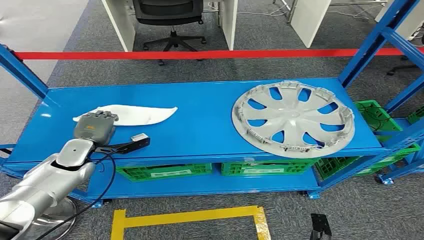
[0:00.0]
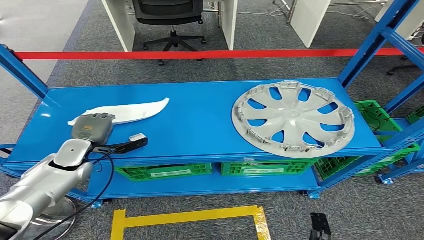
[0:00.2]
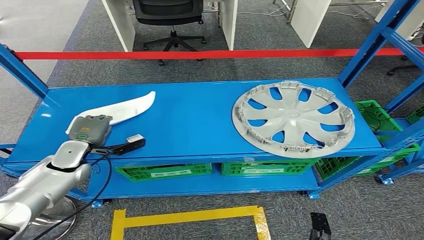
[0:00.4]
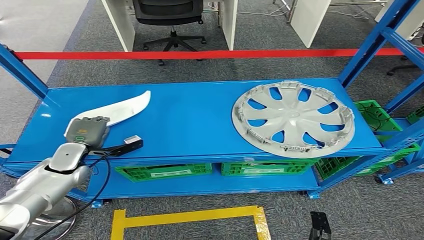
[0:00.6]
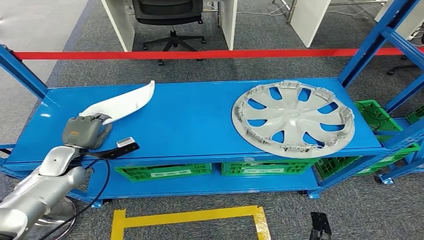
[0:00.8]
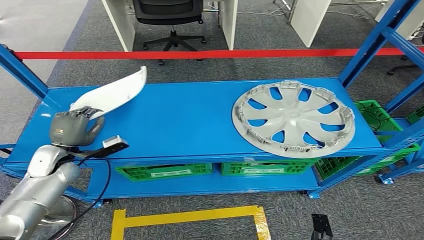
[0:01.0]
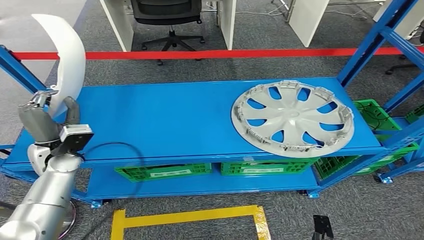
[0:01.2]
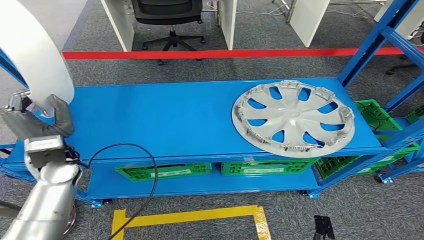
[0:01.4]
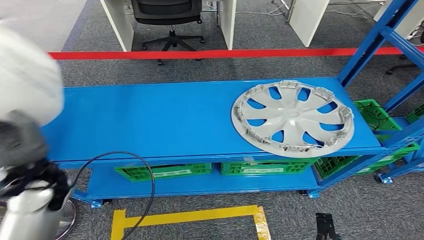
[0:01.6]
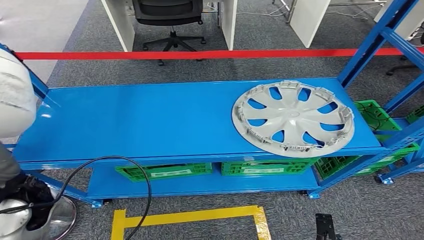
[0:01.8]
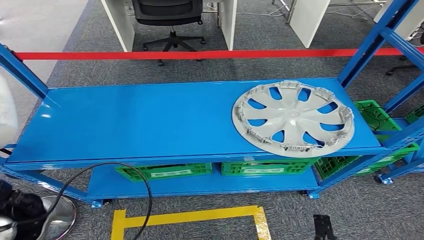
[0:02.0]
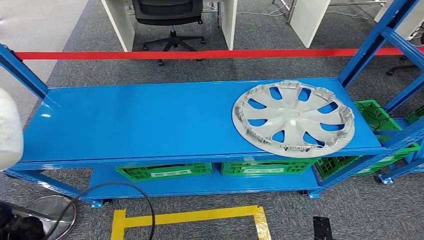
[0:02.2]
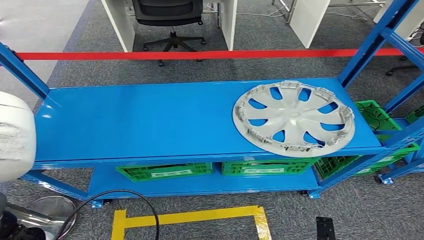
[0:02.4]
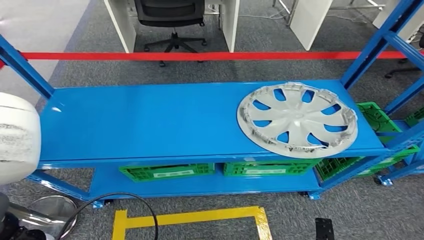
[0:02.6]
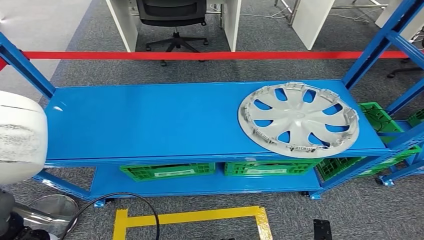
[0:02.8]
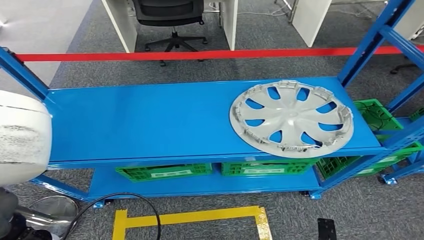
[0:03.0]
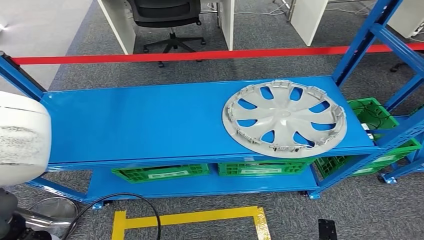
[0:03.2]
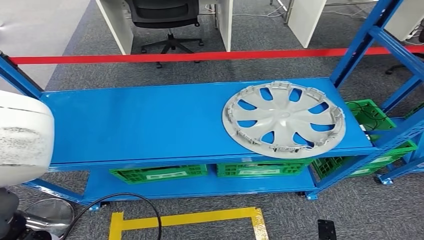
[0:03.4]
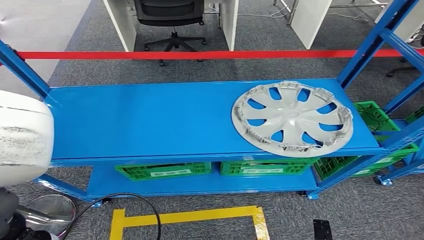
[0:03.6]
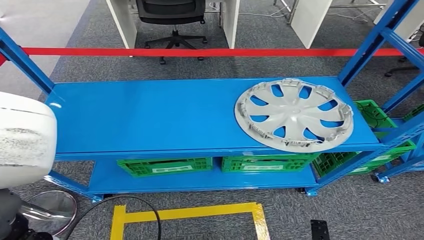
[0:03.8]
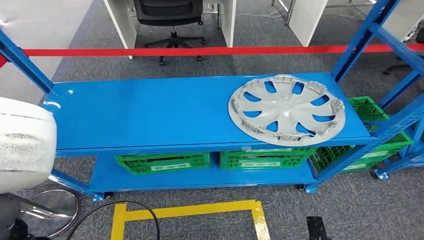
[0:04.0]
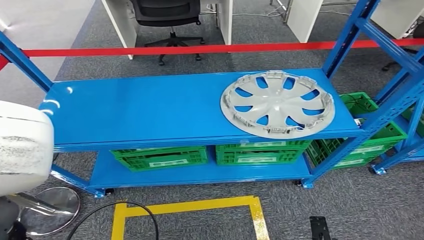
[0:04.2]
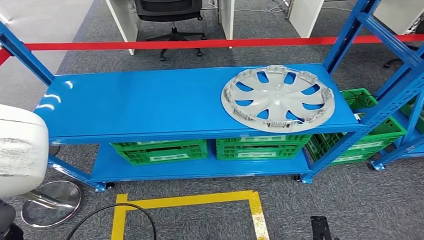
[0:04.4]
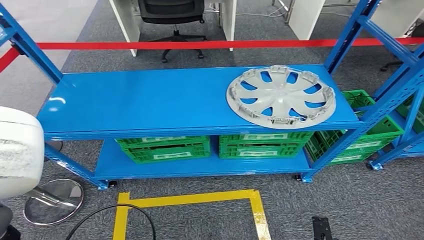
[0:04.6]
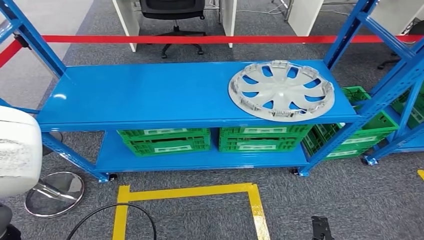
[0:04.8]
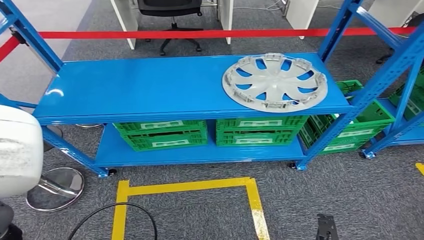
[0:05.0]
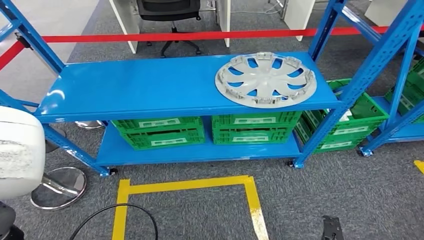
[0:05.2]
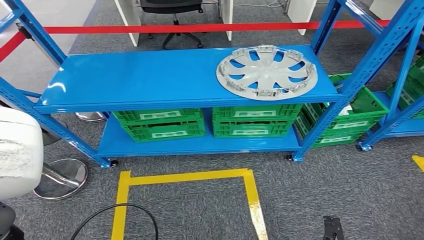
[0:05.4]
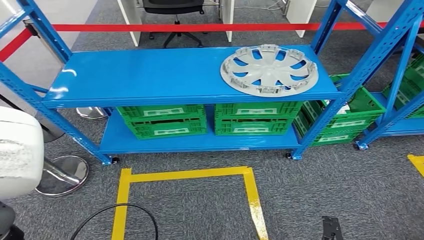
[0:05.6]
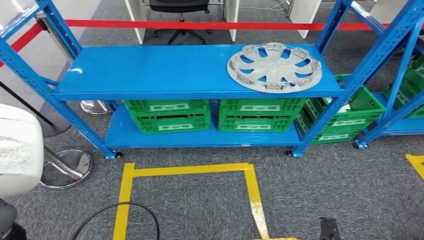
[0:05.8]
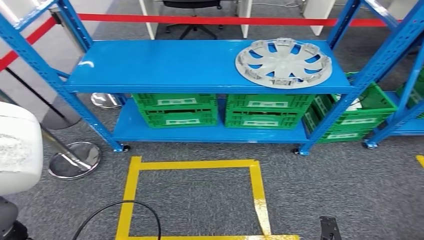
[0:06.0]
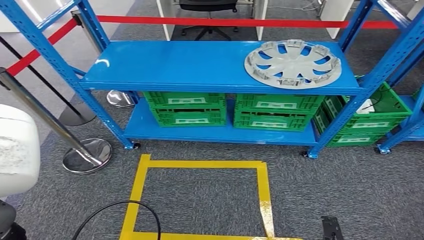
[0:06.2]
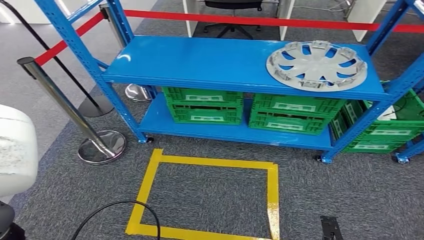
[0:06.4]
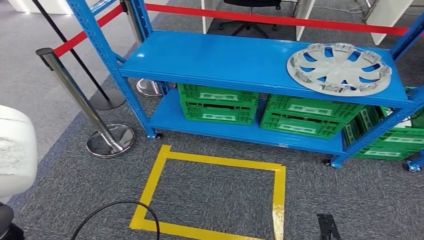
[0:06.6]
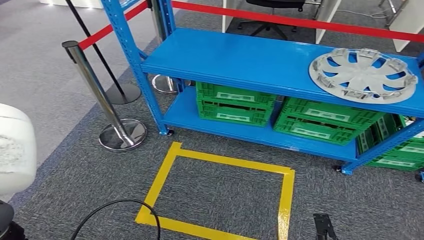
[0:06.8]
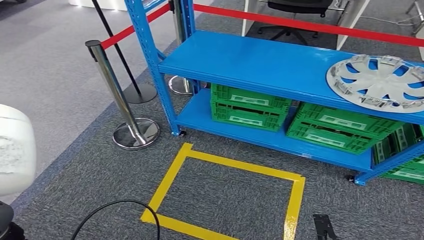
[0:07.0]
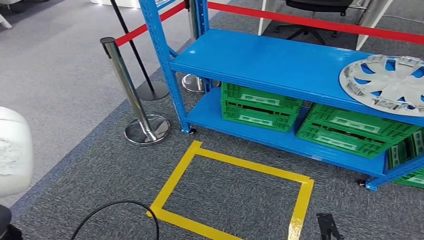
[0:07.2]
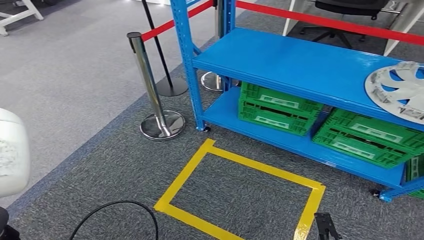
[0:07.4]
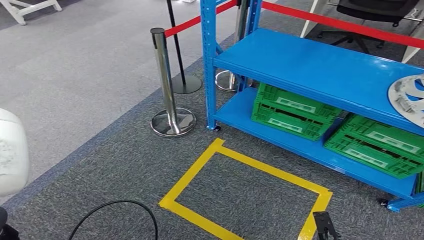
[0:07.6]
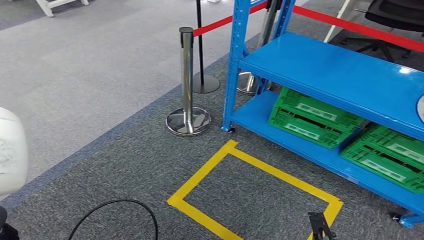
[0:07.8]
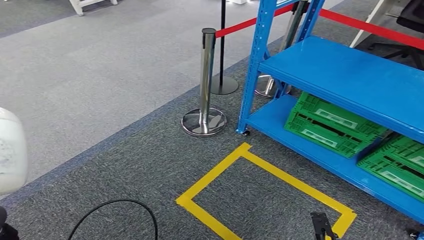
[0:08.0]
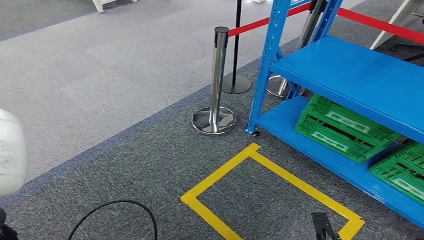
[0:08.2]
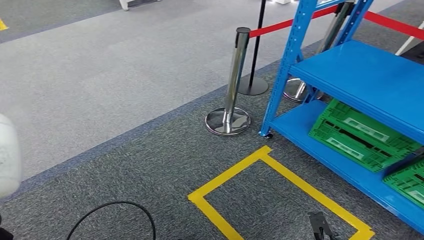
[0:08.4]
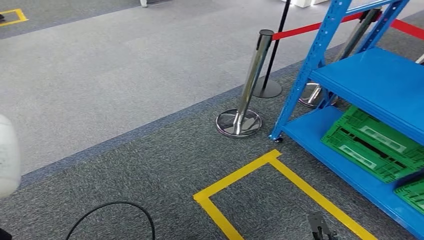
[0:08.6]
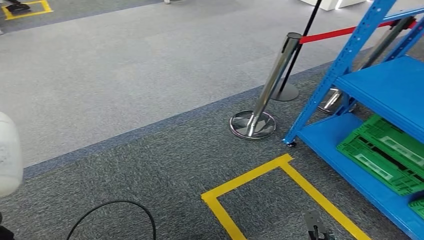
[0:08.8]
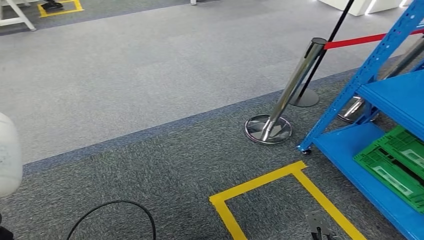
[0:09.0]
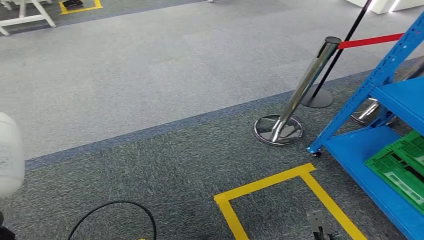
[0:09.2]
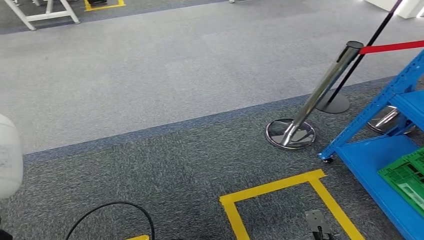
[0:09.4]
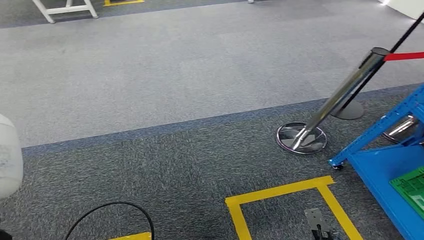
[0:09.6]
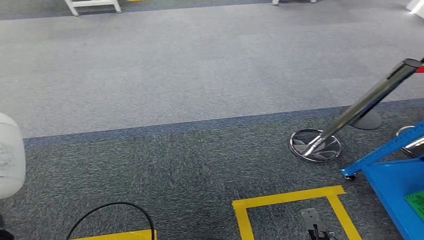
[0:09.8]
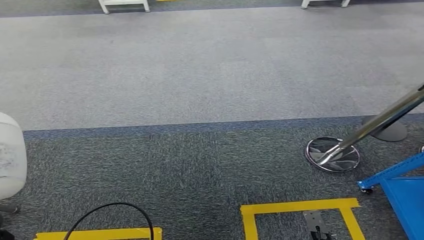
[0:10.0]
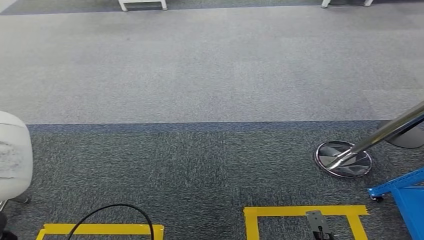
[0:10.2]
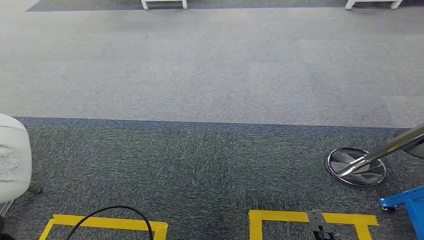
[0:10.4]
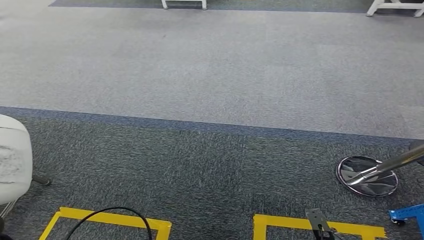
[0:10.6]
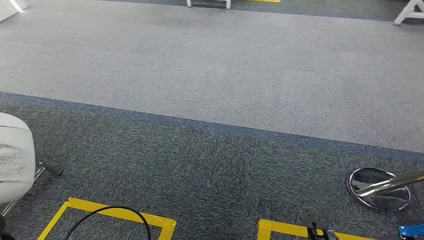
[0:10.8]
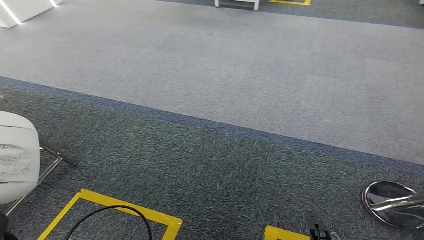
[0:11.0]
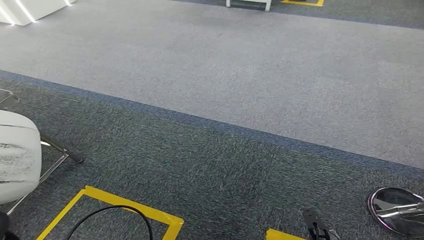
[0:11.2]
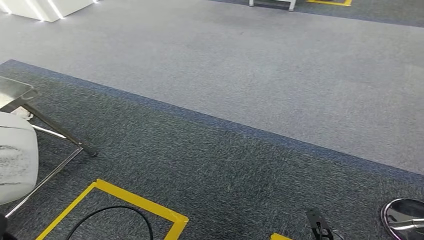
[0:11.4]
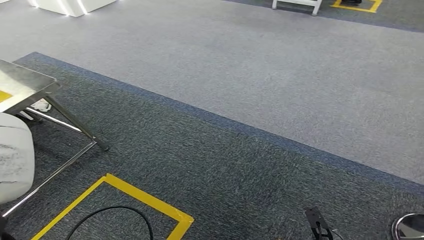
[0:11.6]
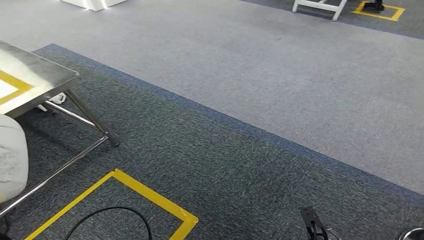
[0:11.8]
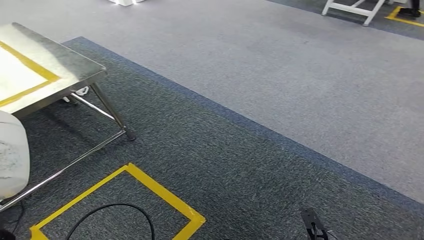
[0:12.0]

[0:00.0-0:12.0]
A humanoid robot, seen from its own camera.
Step, 0:00.0 to 0:01.2: Pick up the small component from the shelf.
0:01.6 to 0:03.0: The left hand is displaced backward by about 10 cm.

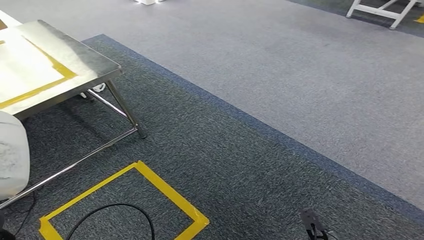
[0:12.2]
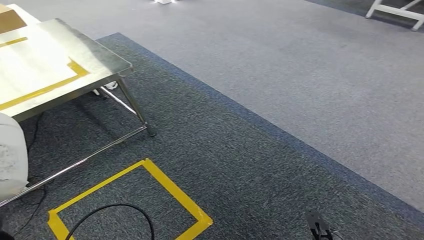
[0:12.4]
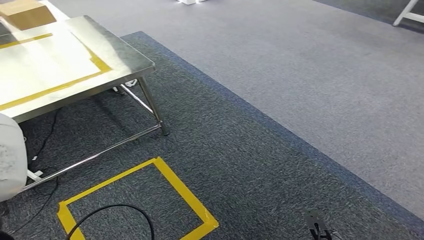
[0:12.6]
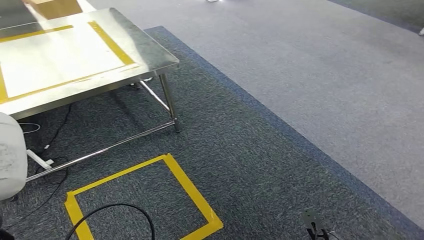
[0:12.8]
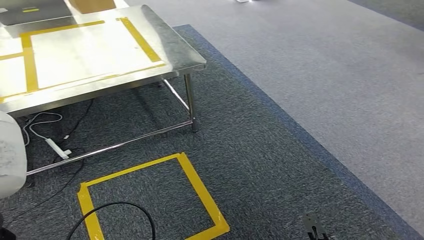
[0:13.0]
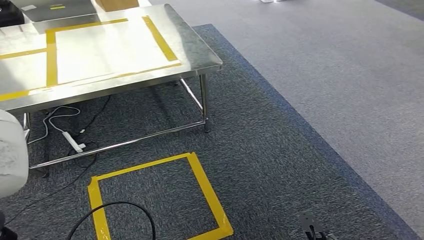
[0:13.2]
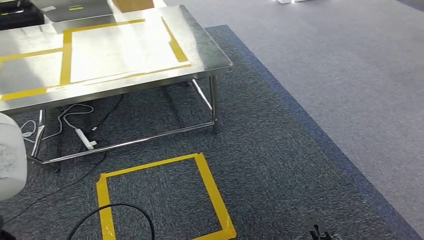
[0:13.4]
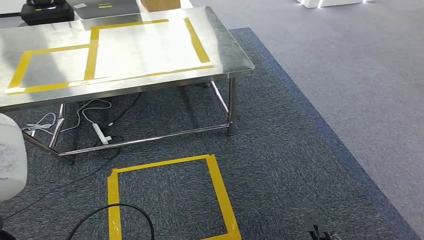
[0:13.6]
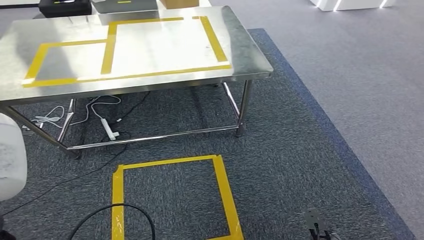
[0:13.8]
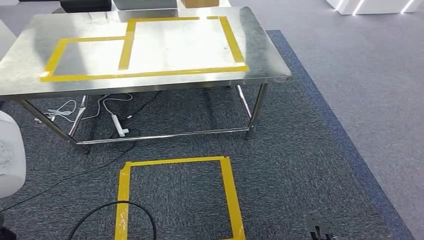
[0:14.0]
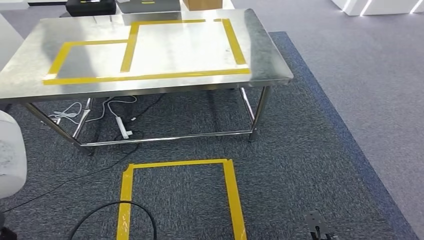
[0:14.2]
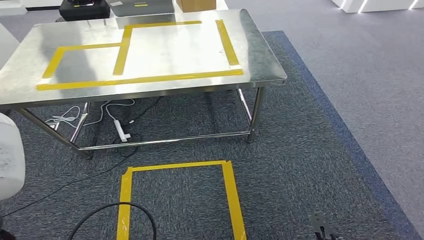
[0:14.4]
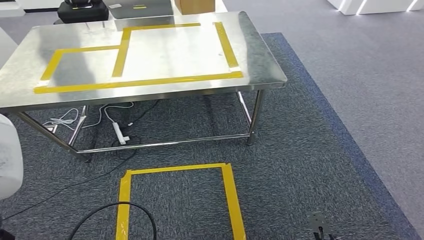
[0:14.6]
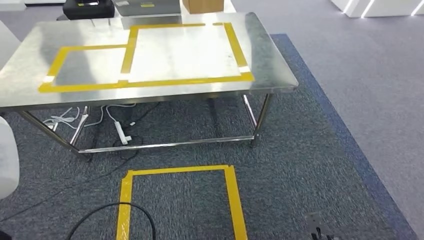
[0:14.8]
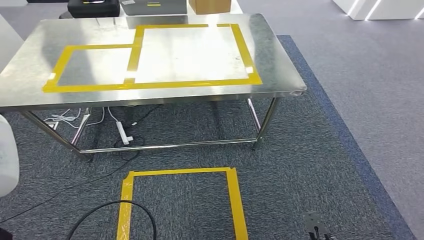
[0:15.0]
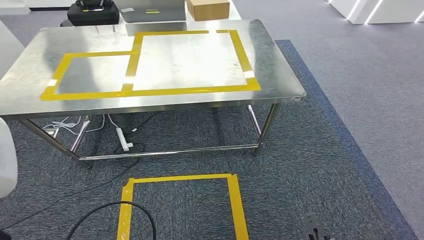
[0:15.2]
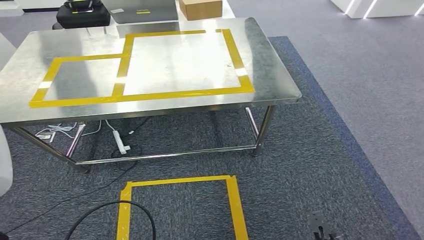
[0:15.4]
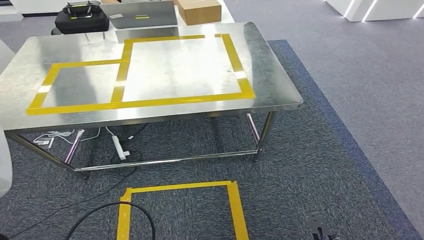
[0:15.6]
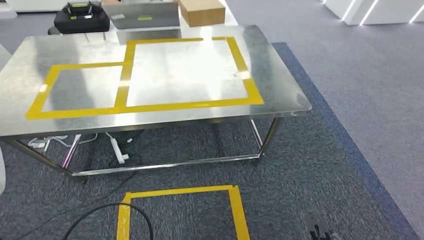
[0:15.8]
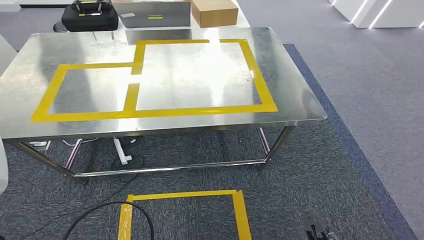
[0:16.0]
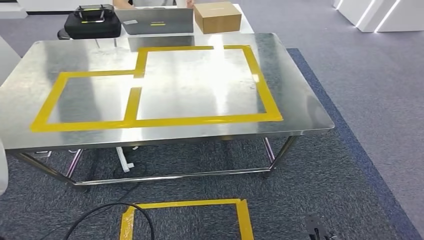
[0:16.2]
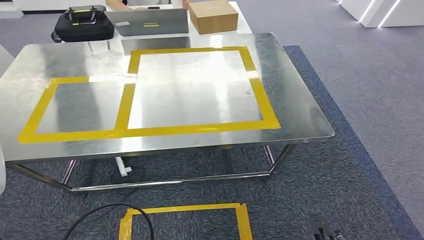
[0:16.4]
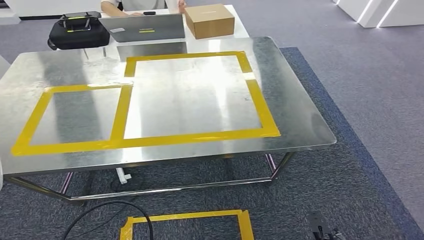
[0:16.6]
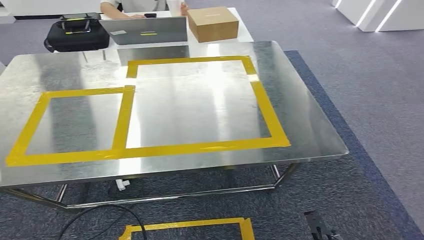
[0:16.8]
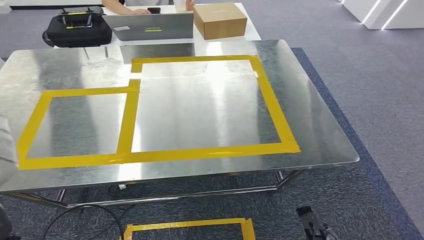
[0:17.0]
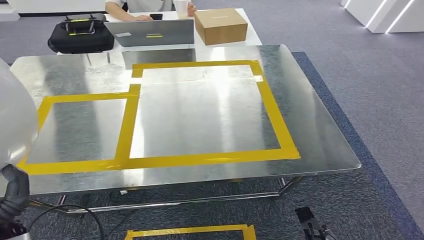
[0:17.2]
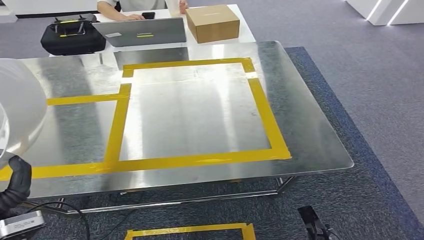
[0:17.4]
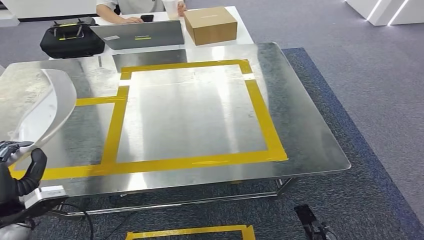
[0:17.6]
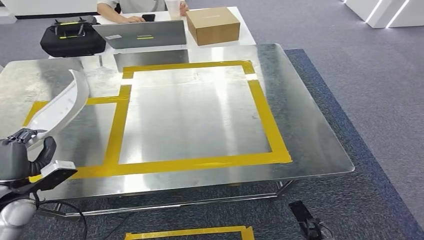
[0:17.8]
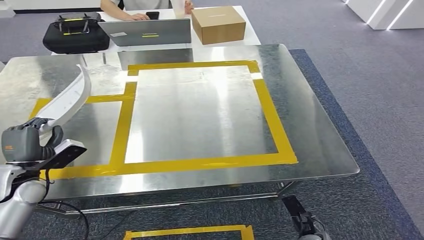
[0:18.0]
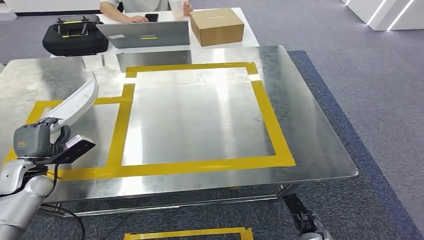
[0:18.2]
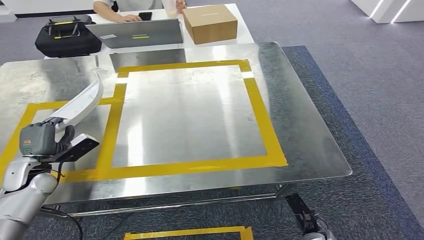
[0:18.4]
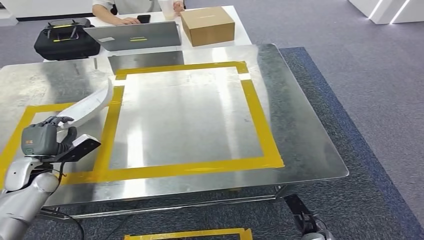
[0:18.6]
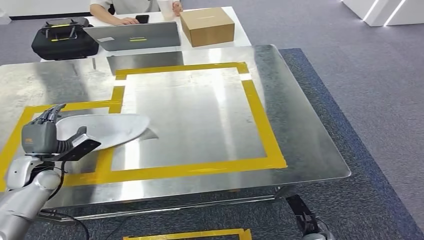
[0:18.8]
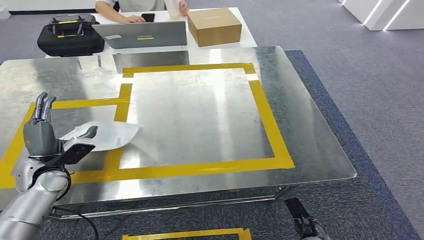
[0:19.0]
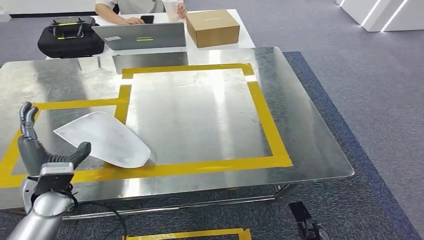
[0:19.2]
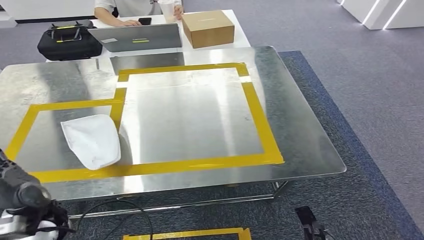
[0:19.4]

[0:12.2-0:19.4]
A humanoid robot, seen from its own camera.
Step, 0:12.2 to 0:17.6: Move the small component to the workbench.
